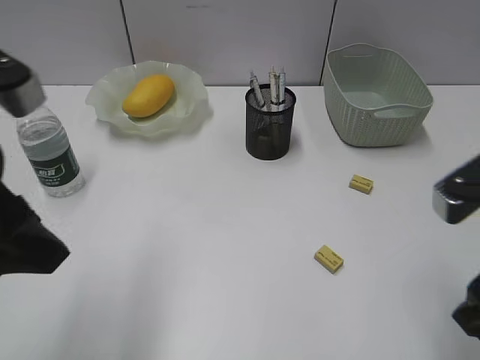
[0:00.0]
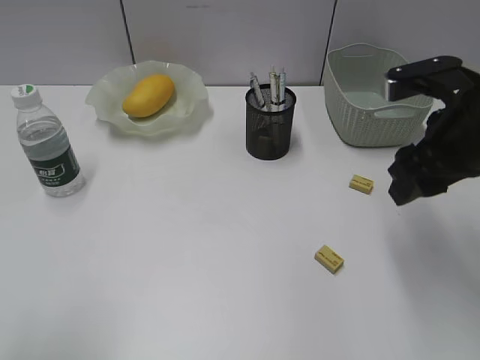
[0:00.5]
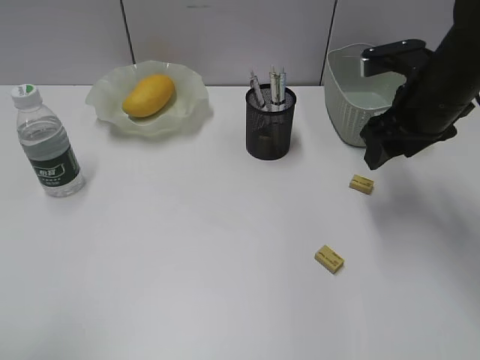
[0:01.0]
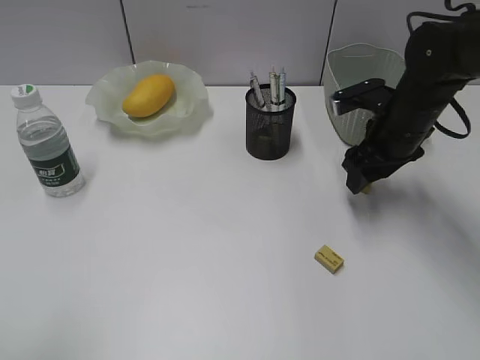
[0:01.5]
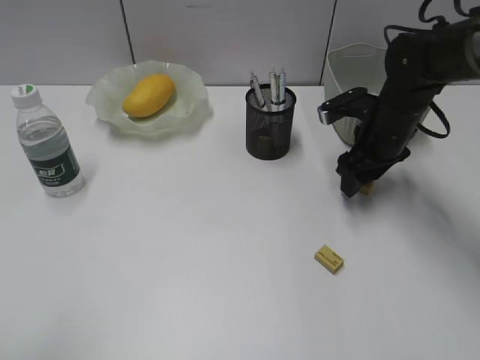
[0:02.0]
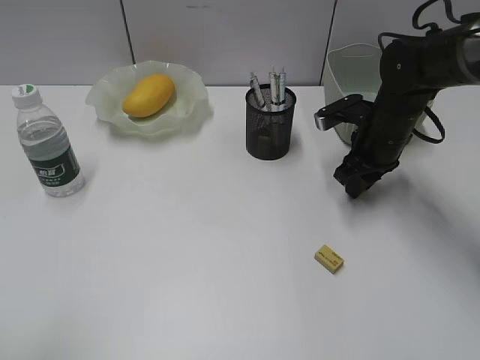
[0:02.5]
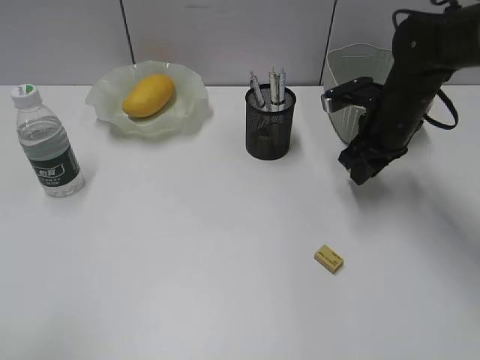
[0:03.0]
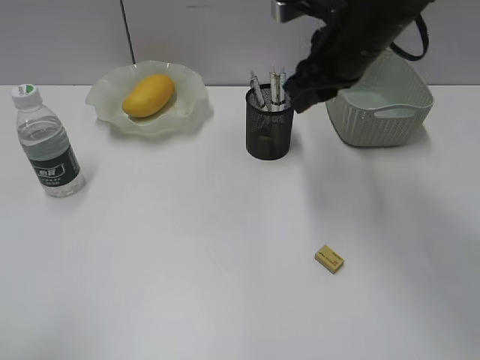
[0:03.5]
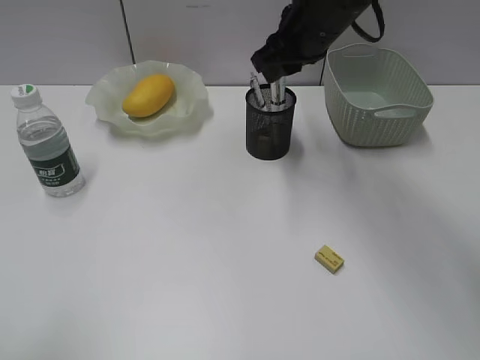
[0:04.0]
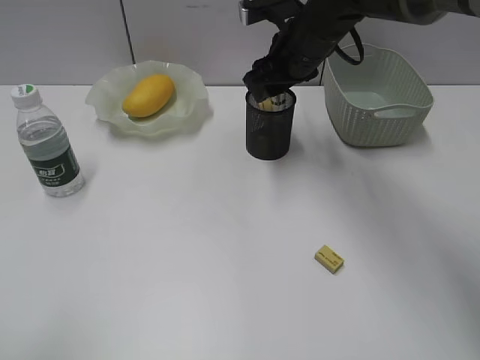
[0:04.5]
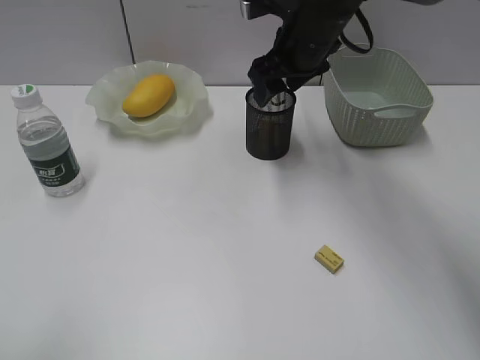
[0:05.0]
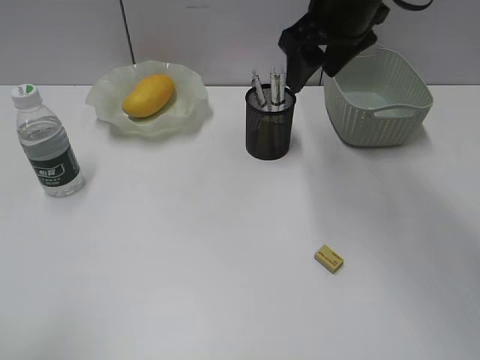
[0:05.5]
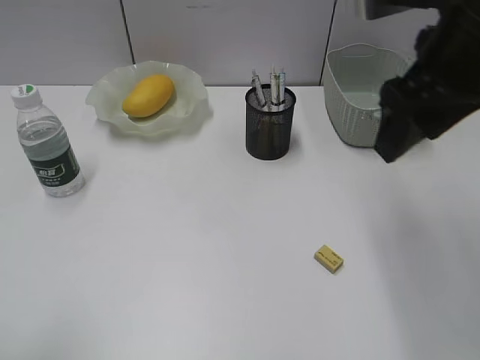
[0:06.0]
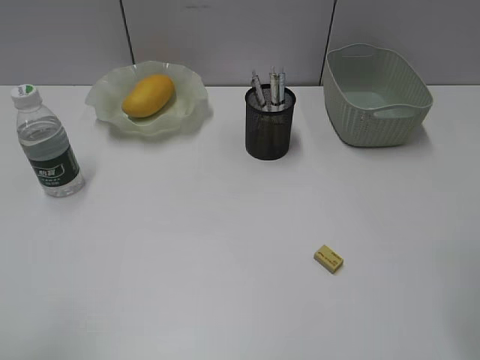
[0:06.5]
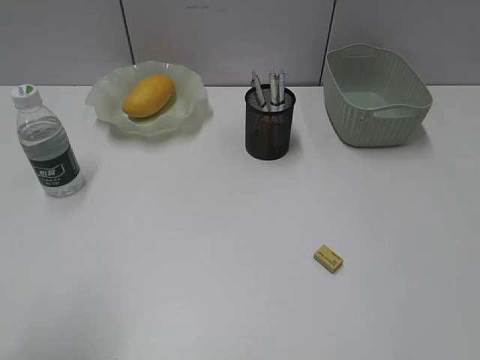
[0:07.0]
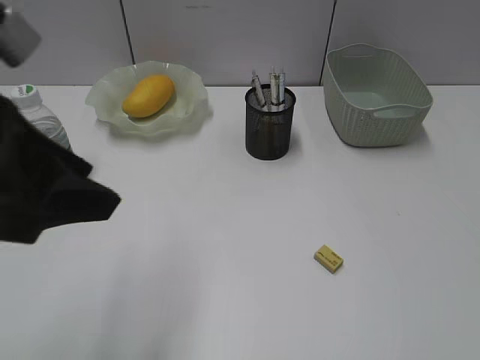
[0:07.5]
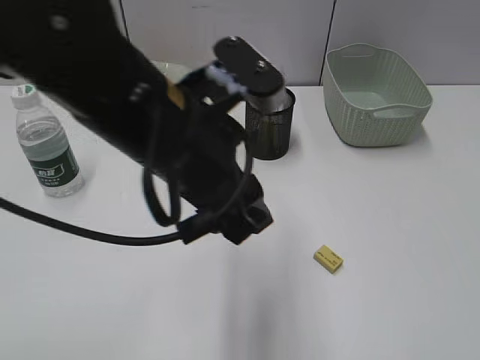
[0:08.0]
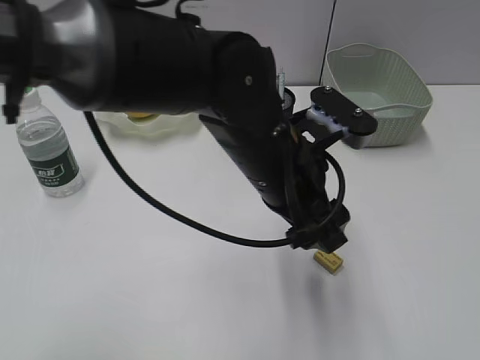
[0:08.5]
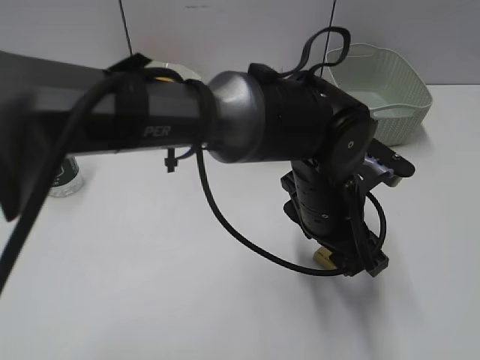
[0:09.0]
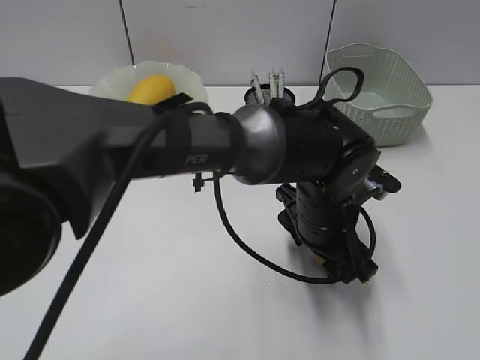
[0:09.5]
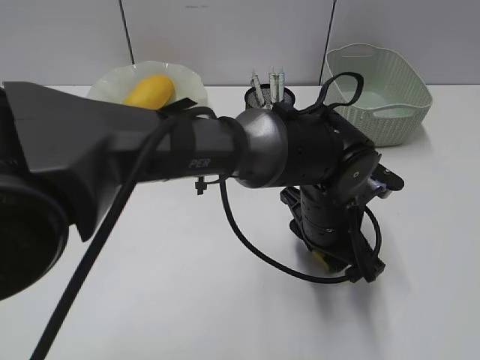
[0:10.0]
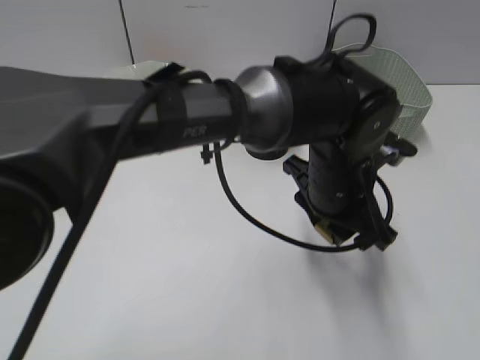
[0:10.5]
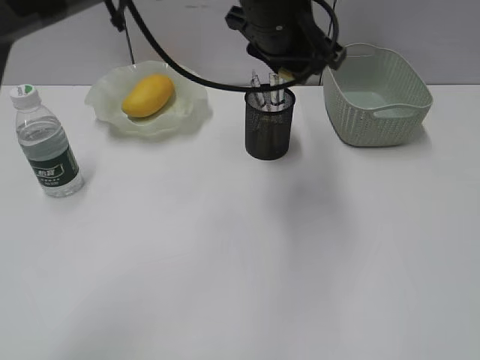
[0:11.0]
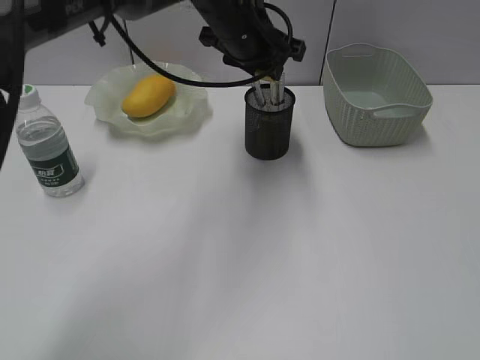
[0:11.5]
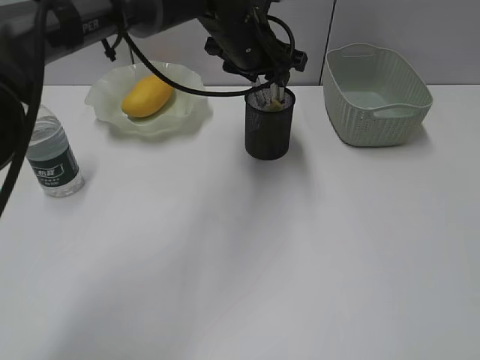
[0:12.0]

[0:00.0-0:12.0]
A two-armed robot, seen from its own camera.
Step, 0:00.0 to 0:02.5: Grasp the eraser with right gripper.
Step, 0:03.0 to 0:04.5: Place the eraser in pen holder with right gripper.
Step, 0:05.0 to 0:10.0: Grasp the eraser with left gripper.
Step, 0:10.5 to 0:12.0: Place the eraser in pen holder with left gripper.
0:00.0 to 0:02.0: The right gripper moves forward and downward, about 30 cm, while the left gripper travels backward and to the left by about 15 cm.
0:02.0 to 0:04.0: The right gripper goes approximately 15 cm upward and to the left, and closes up.
0:04.0 to 0:06.0: The right gripper shifts approximately 20 cm backward, to the right and upward, and opens its fingers.
0:06.0 to 0:08.0: The right gripper goes roughly 30 cm backward and to the right, while the left gripper moves to the right and forward, some 25 cm.
0:08.0 to 0:10.0: The left gripper moves to the right and downward, some 20 cm.
0:10.0 to 0:12.0: The left gripper travels forward, upward and to the left by approximately 25 cm.

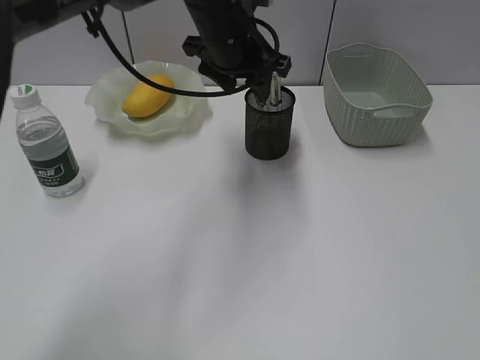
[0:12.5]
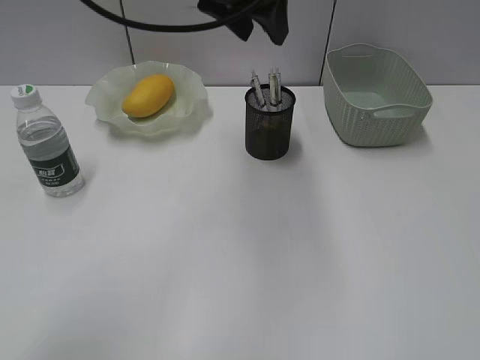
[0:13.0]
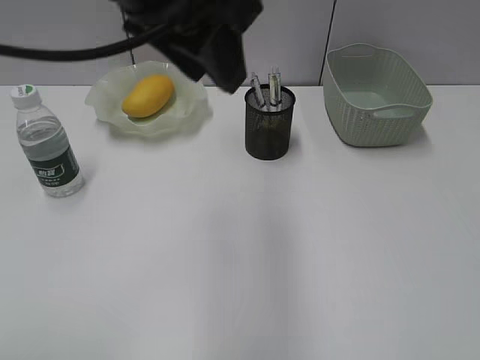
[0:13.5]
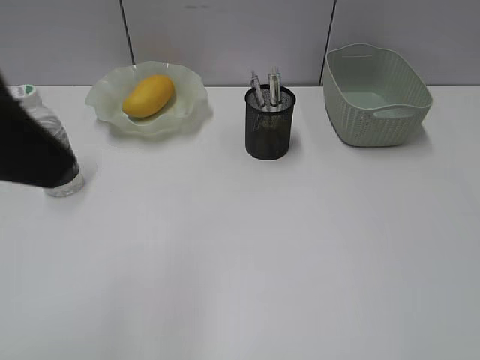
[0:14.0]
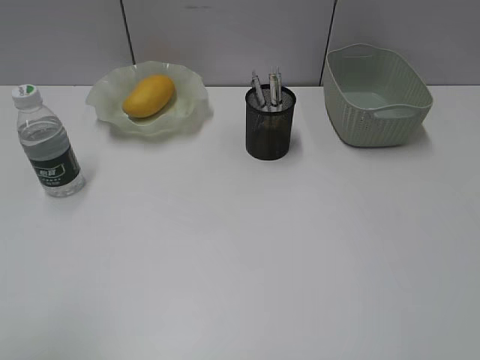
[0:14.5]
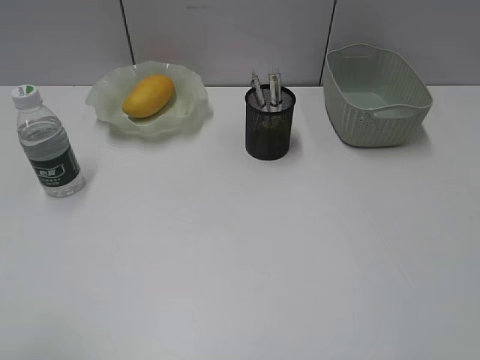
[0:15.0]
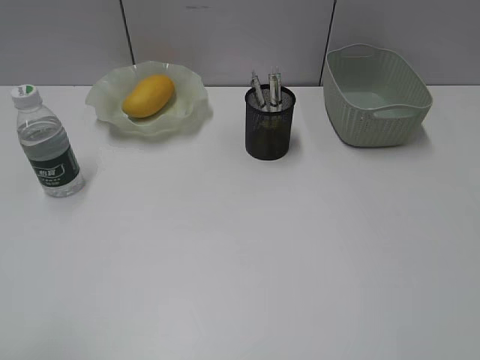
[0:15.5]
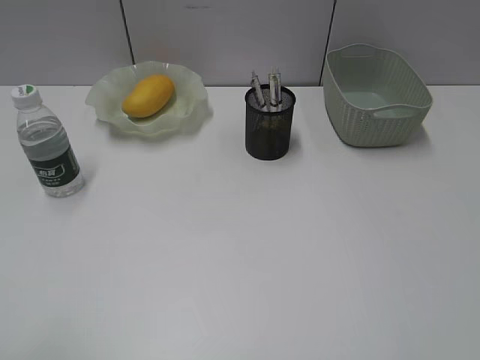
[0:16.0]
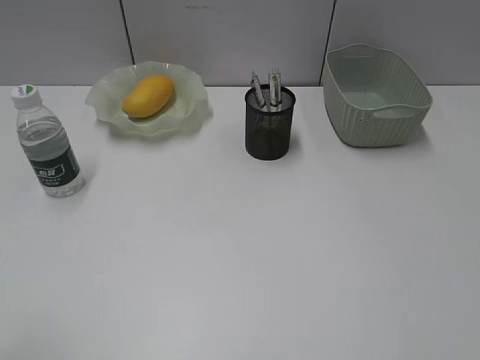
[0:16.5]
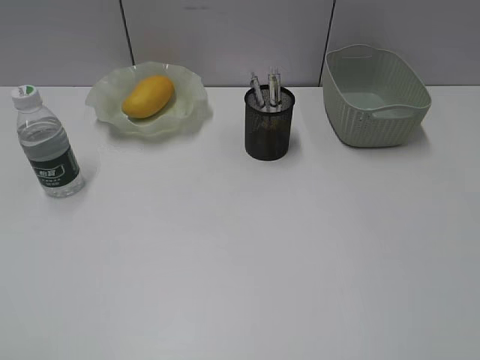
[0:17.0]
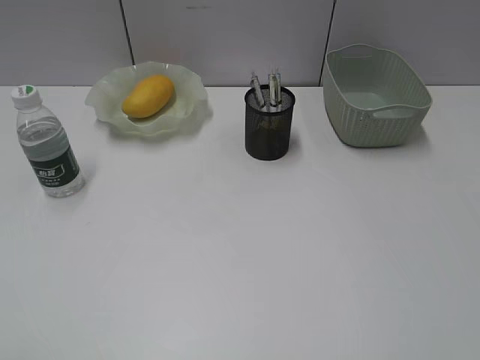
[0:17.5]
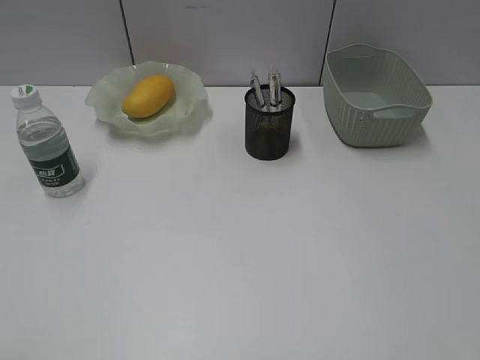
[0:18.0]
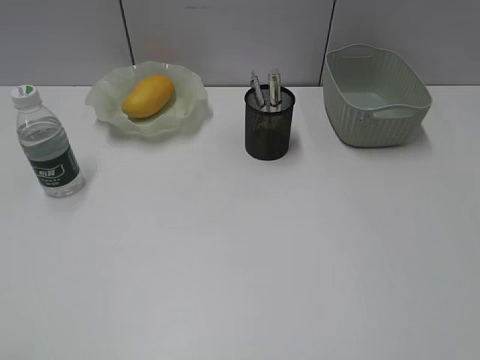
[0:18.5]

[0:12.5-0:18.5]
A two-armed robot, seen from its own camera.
0:12.5 to 0:14.5: The left gripper goes approximately 40 cm backward and to the left.

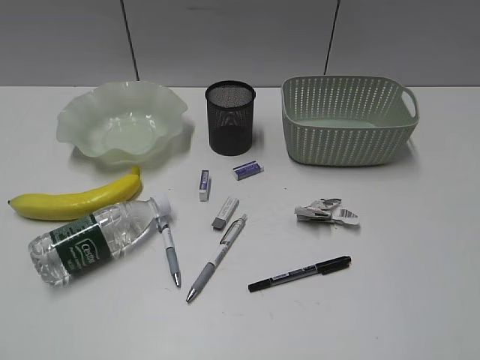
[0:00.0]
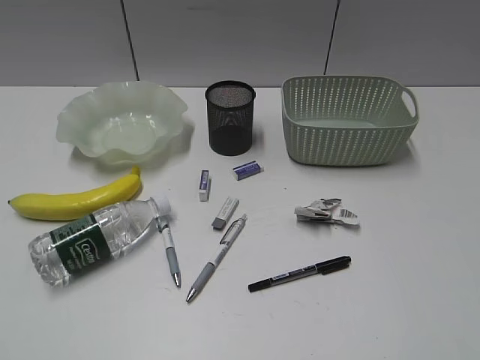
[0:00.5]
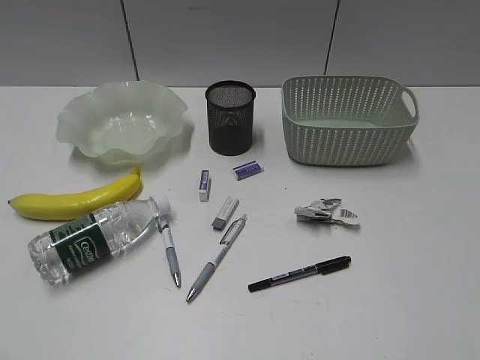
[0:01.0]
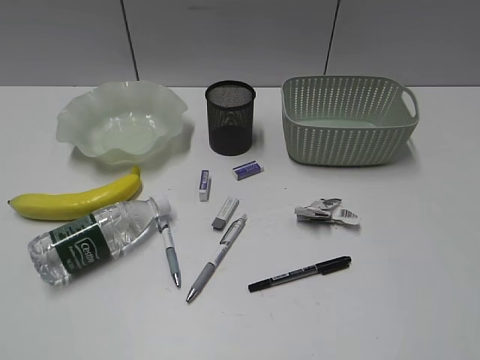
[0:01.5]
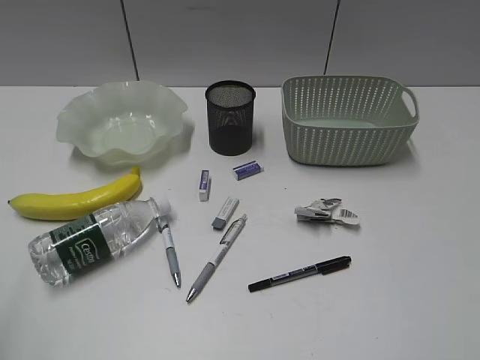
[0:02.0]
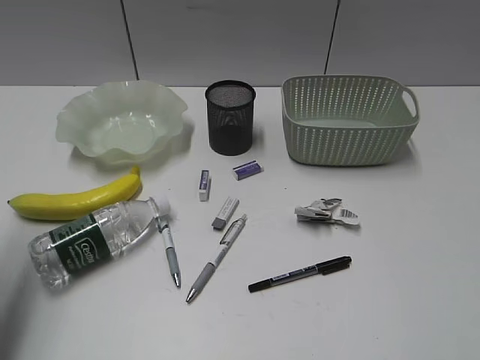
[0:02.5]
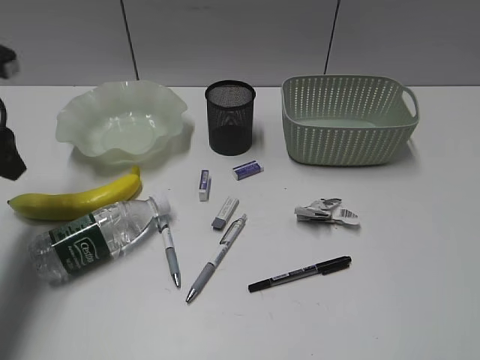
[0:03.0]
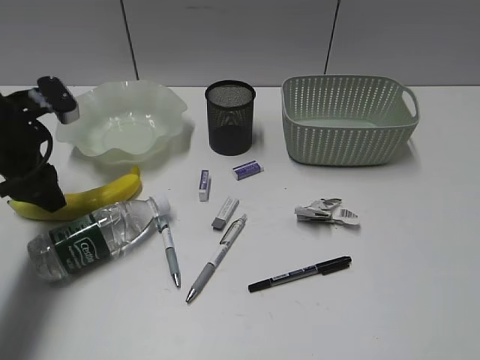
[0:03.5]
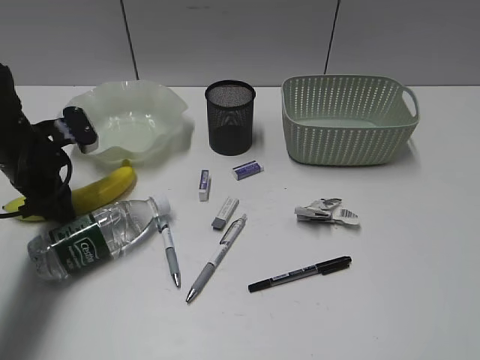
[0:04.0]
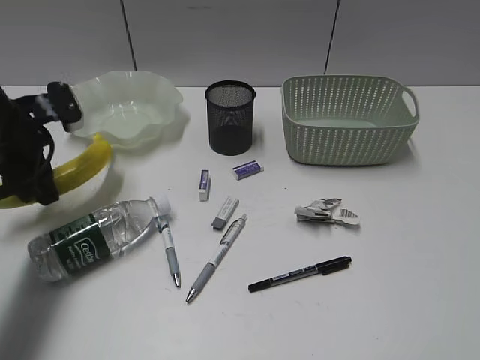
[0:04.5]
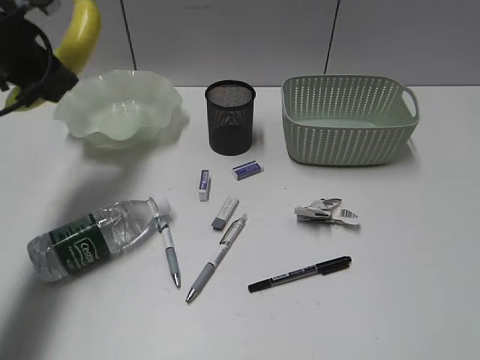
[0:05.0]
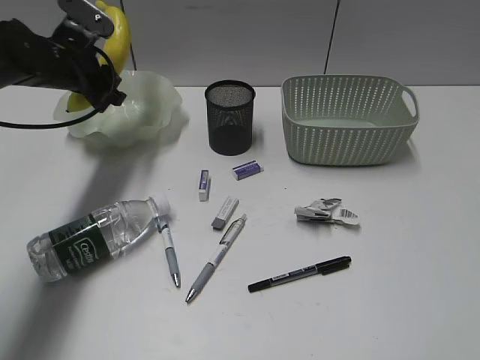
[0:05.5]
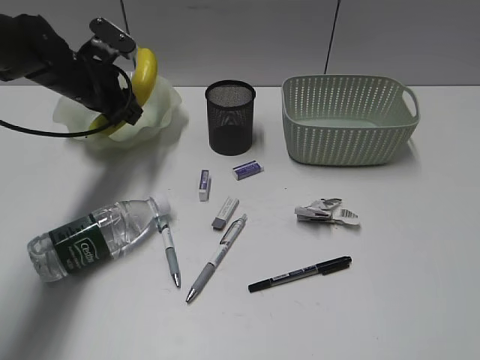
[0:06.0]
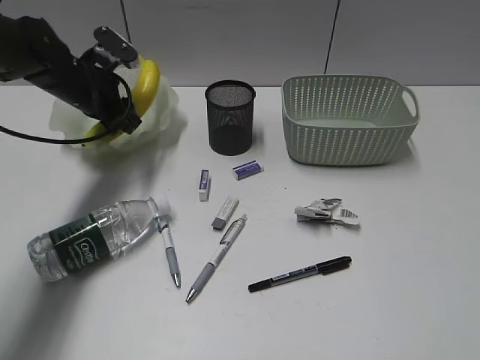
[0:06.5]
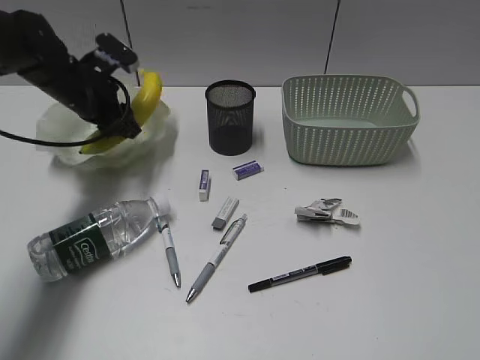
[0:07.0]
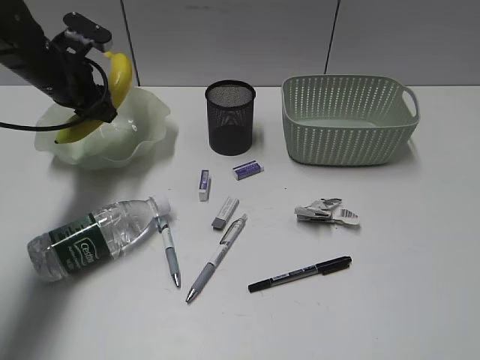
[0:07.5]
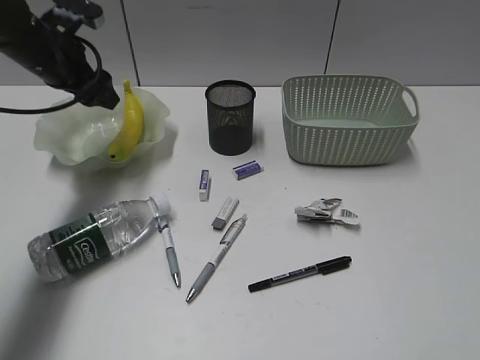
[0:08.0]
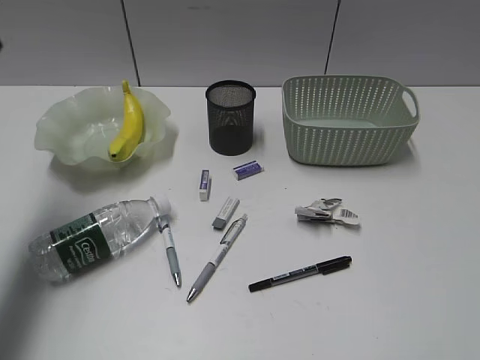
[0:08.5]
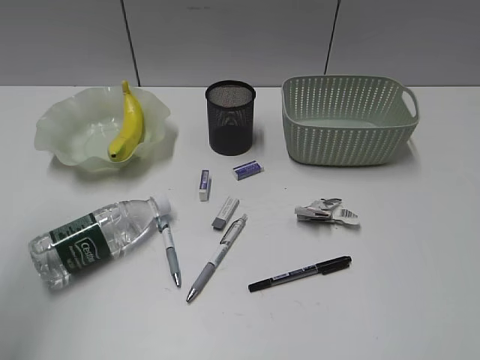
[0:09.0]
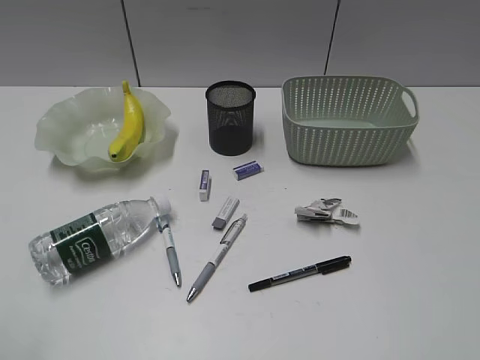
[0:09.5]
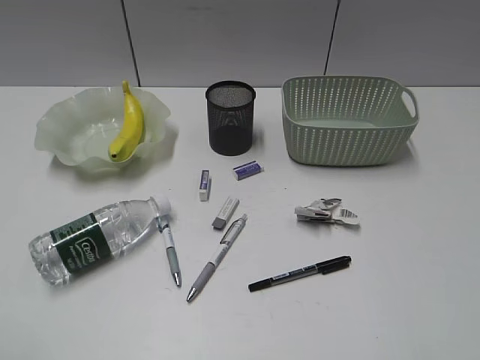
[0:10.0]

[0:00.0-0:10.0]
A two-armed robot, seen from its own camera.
Step, 0:01.5 to 0:04.0: Grasp the banana with left gripper.
Step, 0:04.5 to 0:07.5: Place the banana in the plate with left gripper.
0:02.0 to 0:04.0: The left gripper heads forward and downward, covering some 35 cm, and opens up.
0:04.0 to 0:06.0: The left gripper heads forward and to the right, covering some 10 cm, and reaches some 15 cm upward, then returns.
0:06.0 to 0:08.0: The left gripper travels upward by some 5 cm, and opens up.
0:08.0 to 0:10.0: The left gripper shifts about 40 cm backward.
